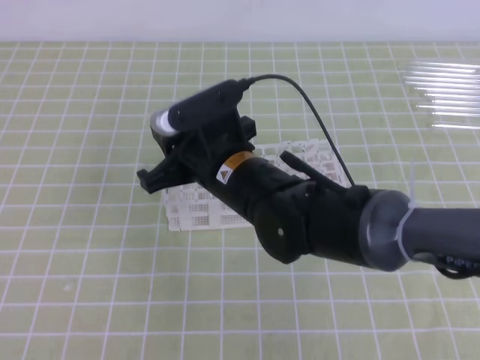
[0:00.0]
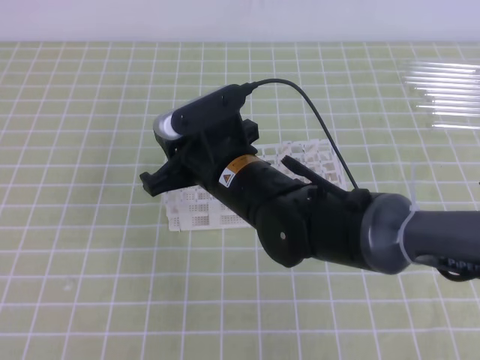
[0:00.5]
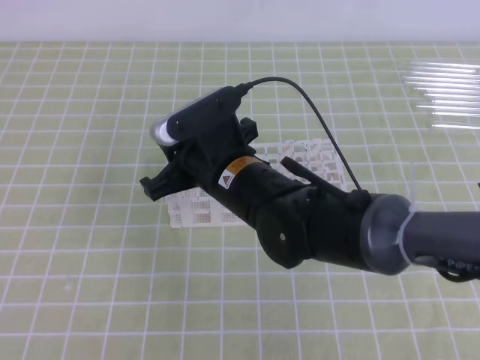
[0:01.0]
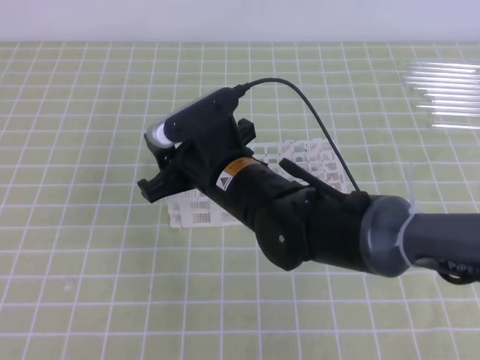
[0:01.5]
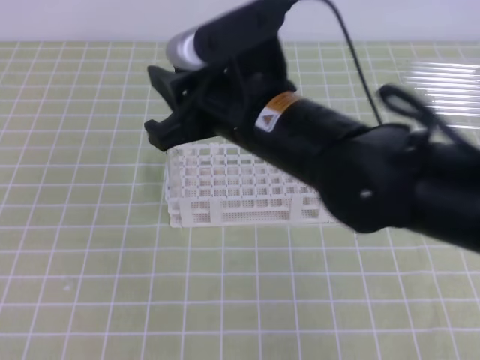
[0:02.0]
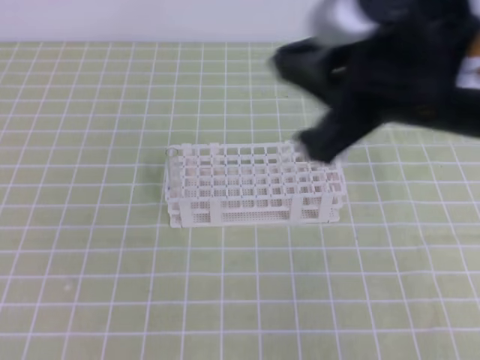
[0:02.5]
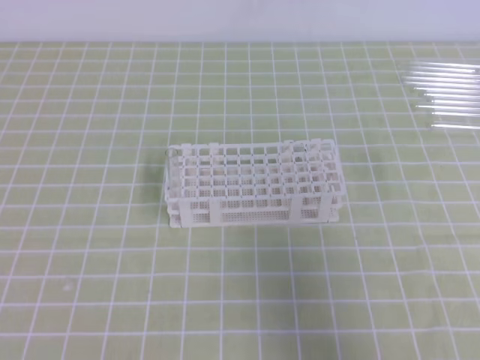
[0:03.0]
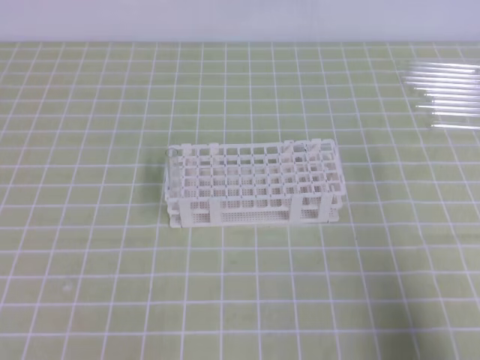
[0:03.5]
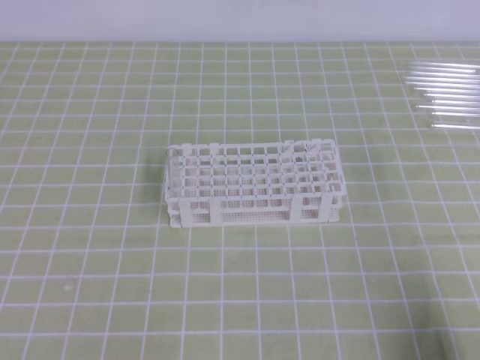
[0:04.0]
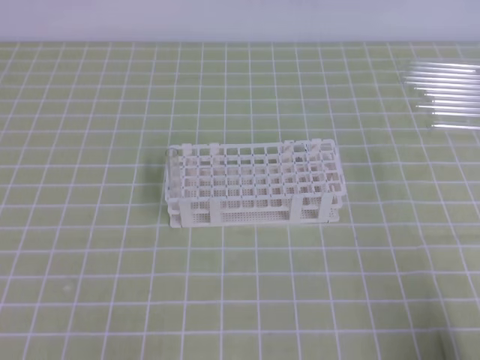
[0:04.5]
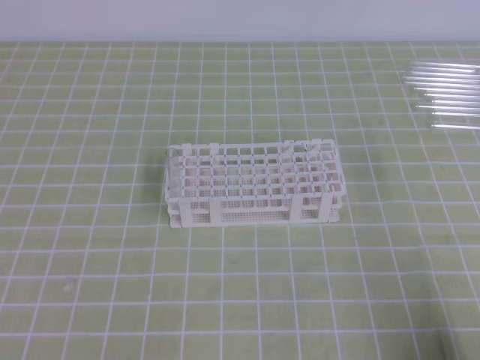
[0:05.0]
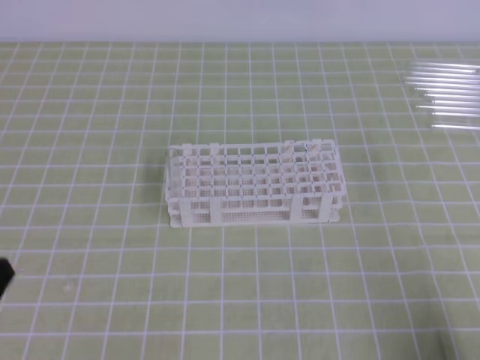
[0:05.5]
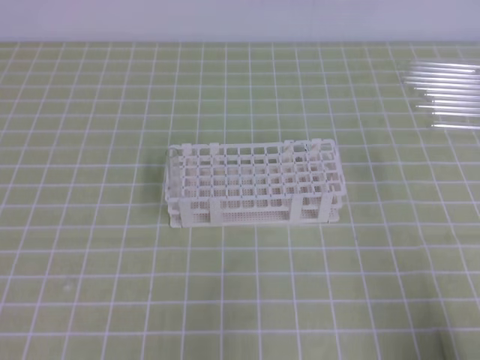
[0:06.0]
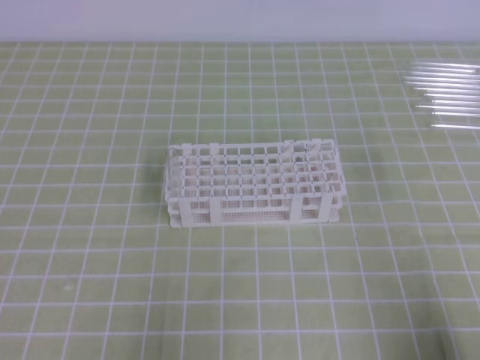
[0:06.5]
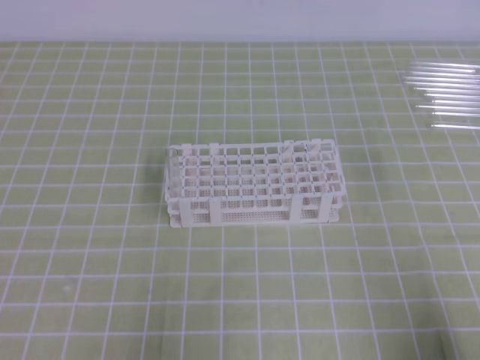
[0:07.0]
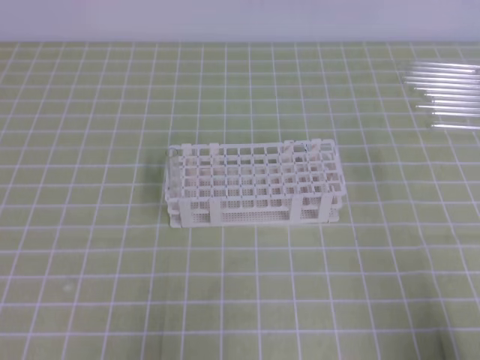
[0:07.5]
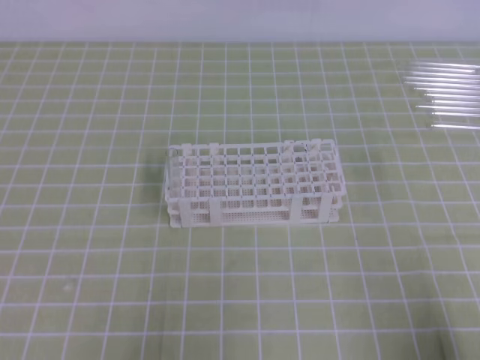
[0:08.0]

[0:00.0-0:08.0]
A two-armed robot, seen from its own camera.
0:00.0 to 0:02.0: The right gripper shifts approximately 10 cm upward.
0:02.0 to 0:04.0: The right gripper moves to the right, backward and downward, about 40 cm, and closes its fingers.
0:04.0 to 0:06.0: The left gripper shifts about 5 cm downward, and closes.
